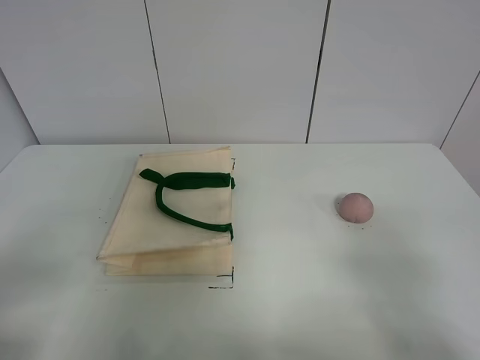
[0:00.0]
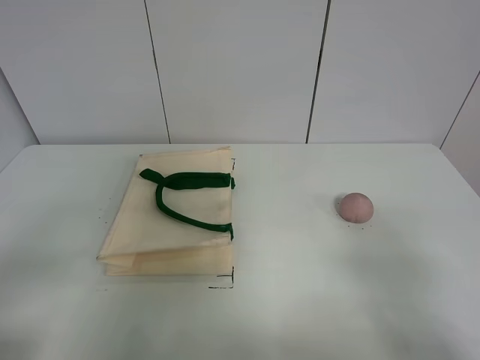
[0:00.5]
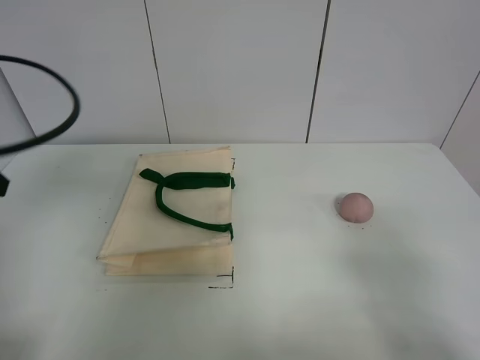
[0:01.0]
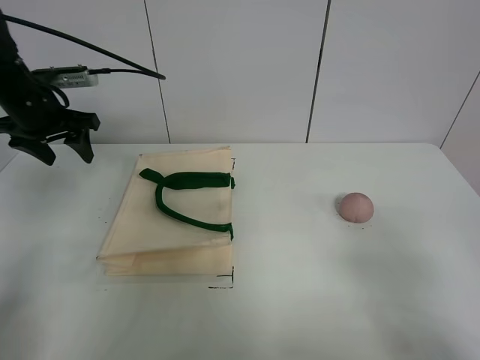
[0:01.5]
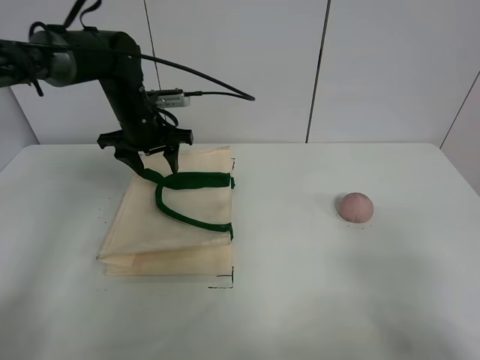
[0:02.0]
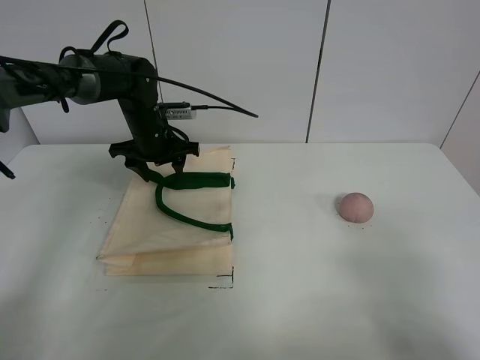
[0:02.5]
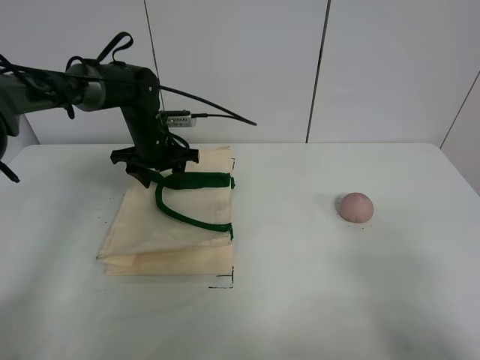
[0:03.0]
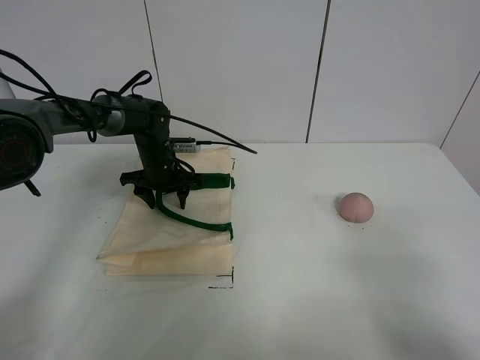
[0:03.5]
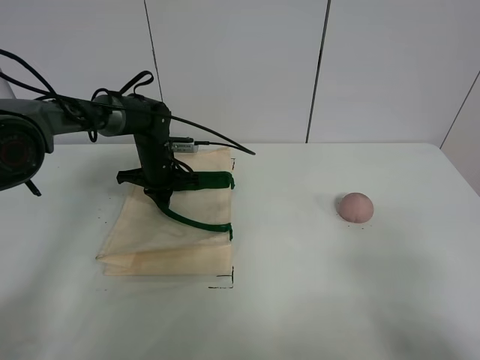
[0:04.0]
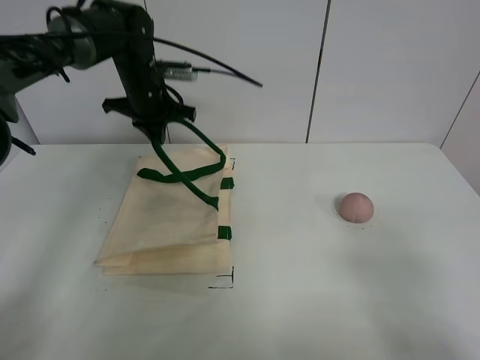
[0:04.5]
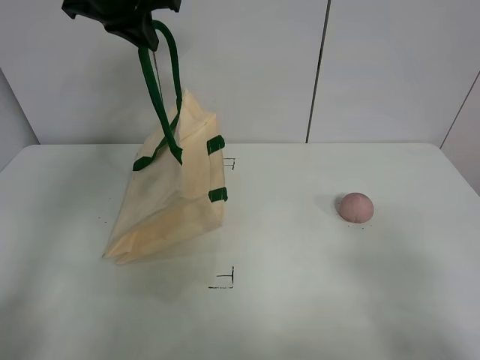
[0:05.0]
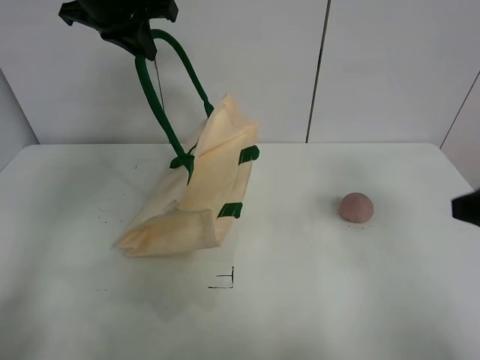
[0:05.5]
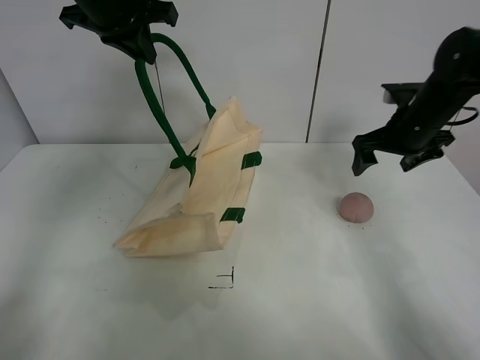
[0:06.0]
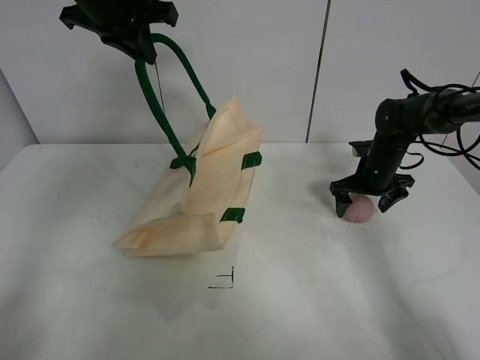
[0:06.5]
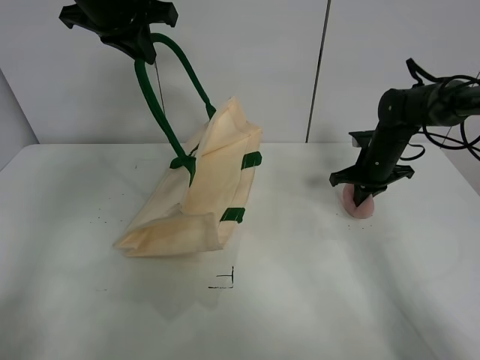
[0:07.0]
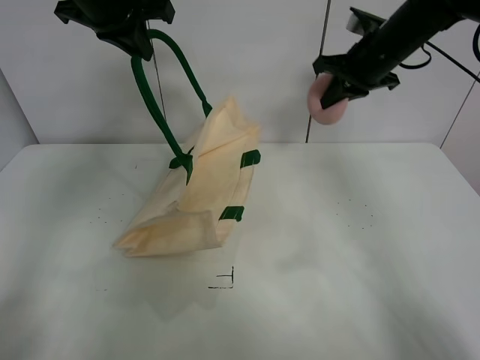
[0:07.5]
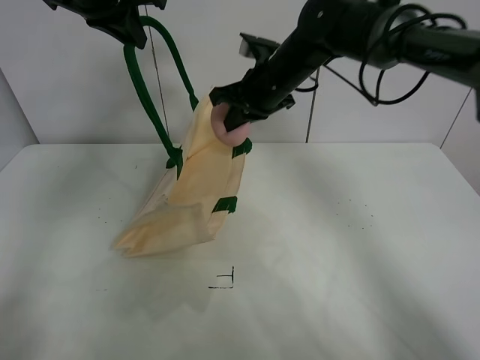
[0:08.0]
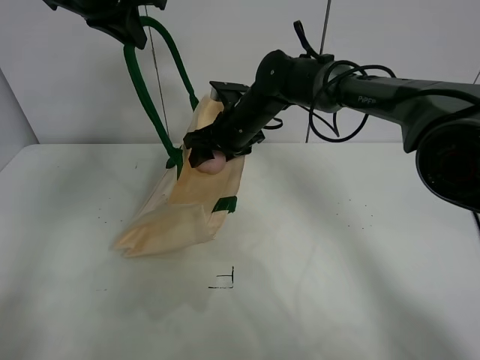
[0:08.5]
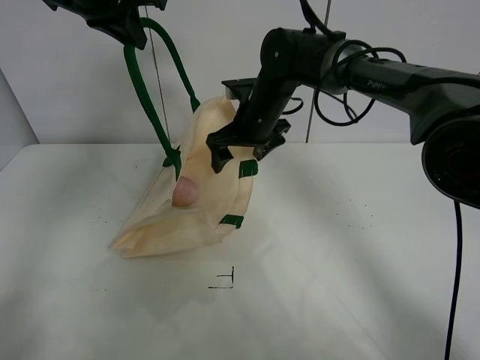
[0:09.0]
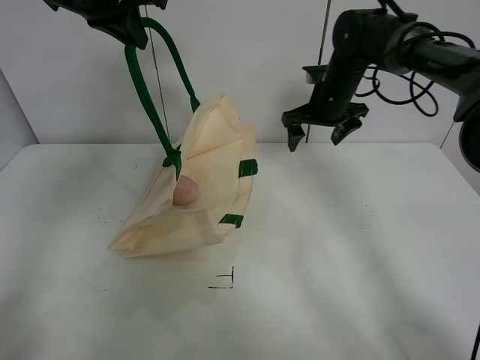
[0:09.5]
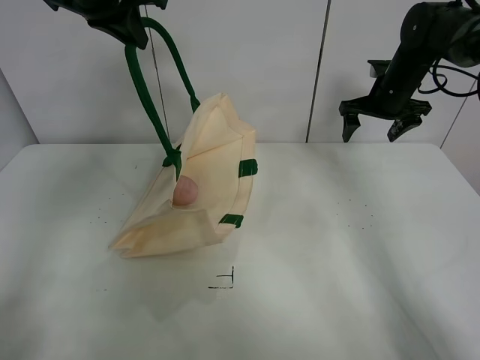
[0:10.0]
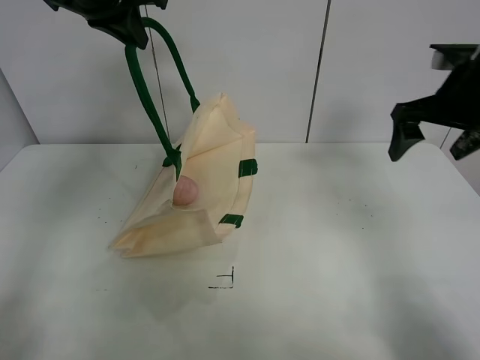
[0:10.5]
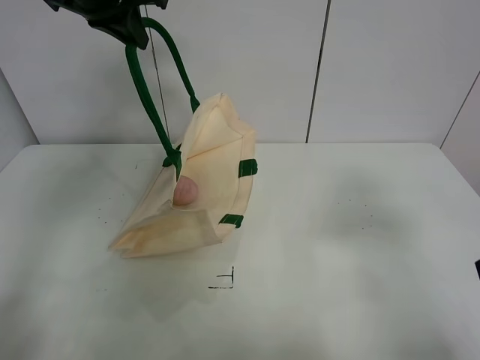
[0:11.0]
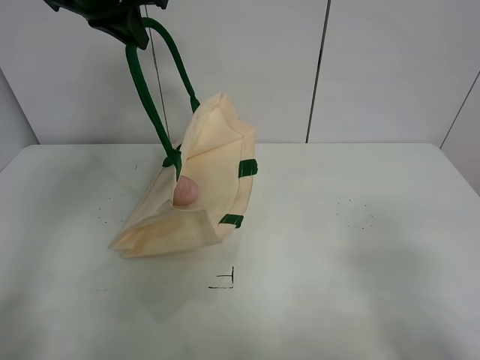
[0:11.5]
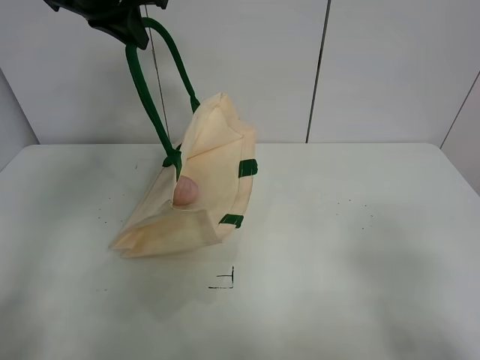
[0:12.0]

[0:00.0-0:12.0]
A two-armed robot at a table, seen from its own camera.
Task of the whole recording: open the white linen bag and put the peach in the bag.
Step, 0:00.0 to 0:05.0: Lift the handbag with left gripper.
Step, 0:05.5 to 0:07.0: Grasp the peach with right gripper.
Step, 0:07.5 to 0:08.5: Place the peach in the handbag with right gripper.
0:00.0 to 0:02.0: The left gripper is displaced forward by some 40 cm.
0:02.0 to 0:04.0: The left gripper goes approximately 10 cm downward, and closes.
0:04.0 to 0:06.0: The right gripper travels forward by about 40 cm; the left gripper goes about 30 cm upward.
0:06.0 to 0:08.0: The right gripper moves up and down over approximately 20 cm, changing direction 2 times, and closes up.
0:08.0 to 0:10.0: The right gripper is displaced to the right by some 20 cm, and opens up.
0:10.0 to 0:12.0: The right gripper travels backward by some 50 cm.

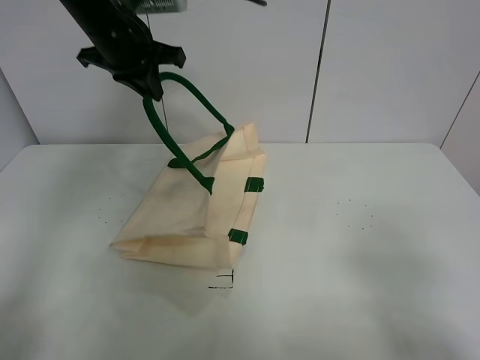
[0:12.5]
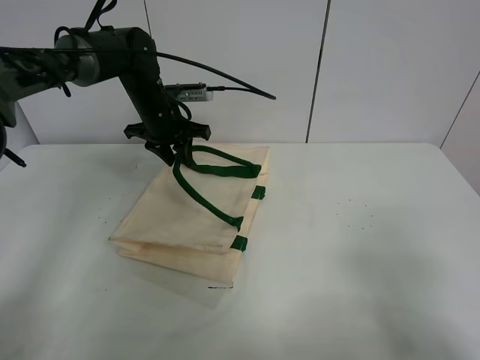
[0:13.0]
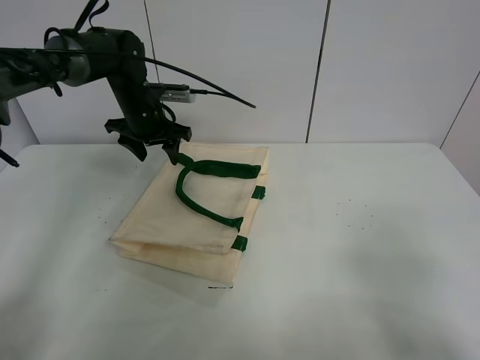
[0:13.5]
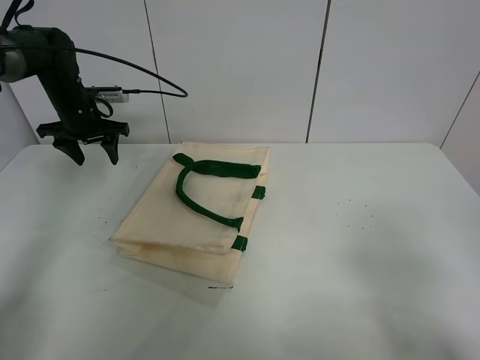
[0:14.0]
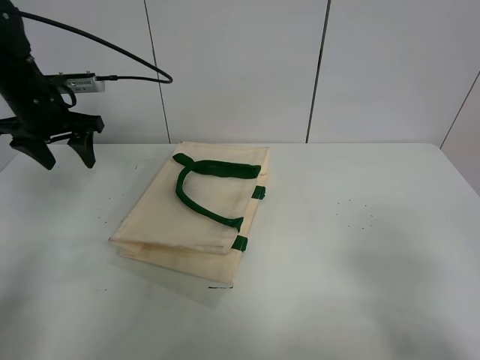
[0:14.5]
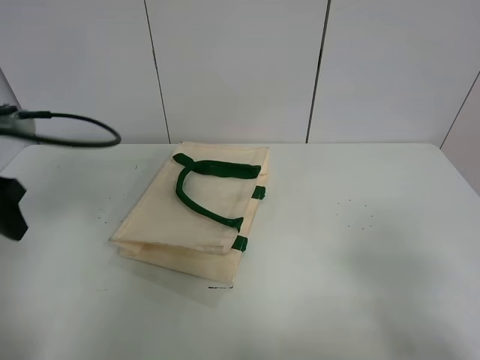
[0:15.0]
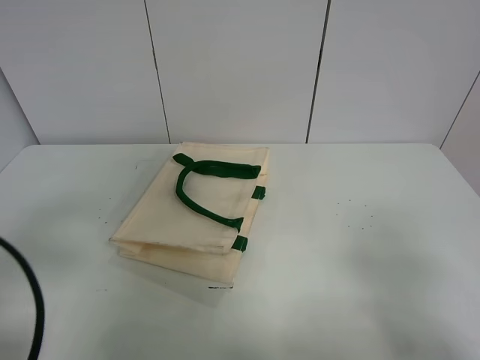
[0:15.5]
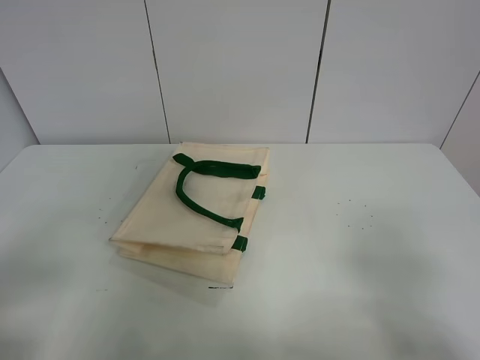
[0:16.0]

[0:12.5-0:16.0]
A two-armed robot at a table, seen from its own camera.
Task of the whole recording: open the white linen bag and put the peach in the bag.
0:12.5 to 0:14.5: The left gripper travels to the left and downward by approximately 15 cm, and opens up.
0:14.5 to 0:16.0: The left gripper is displaced backward by some 35 cm.
